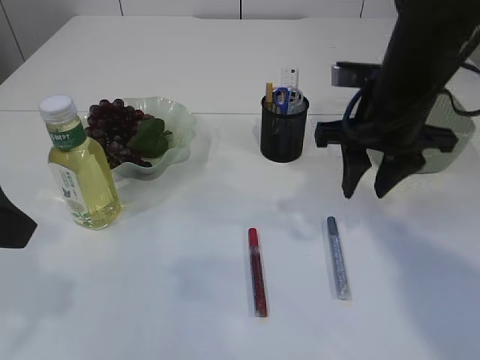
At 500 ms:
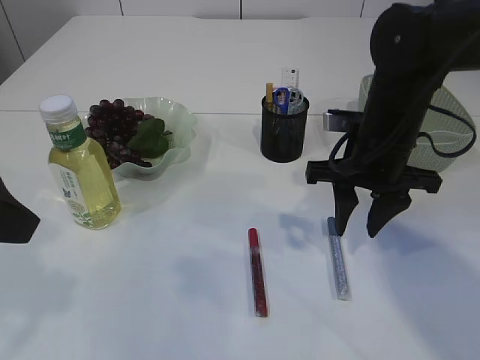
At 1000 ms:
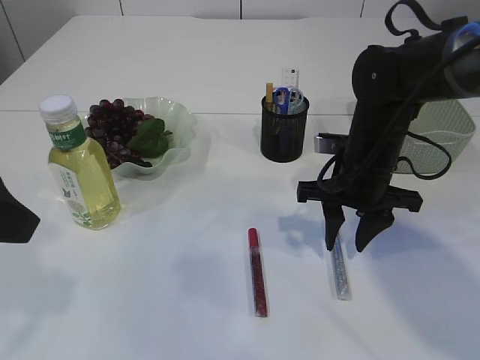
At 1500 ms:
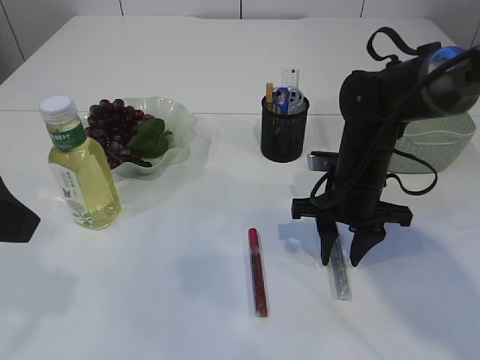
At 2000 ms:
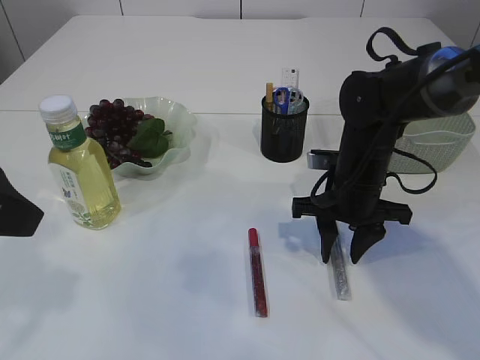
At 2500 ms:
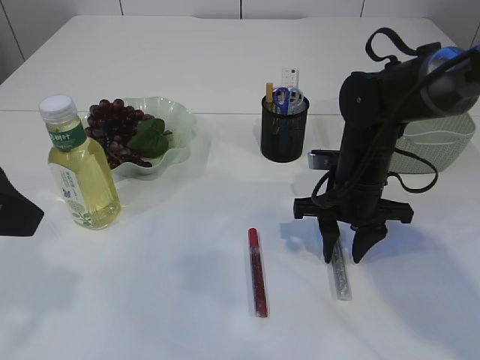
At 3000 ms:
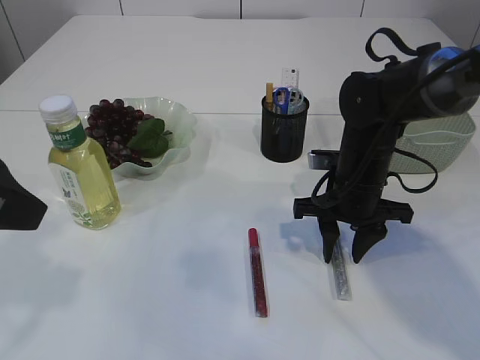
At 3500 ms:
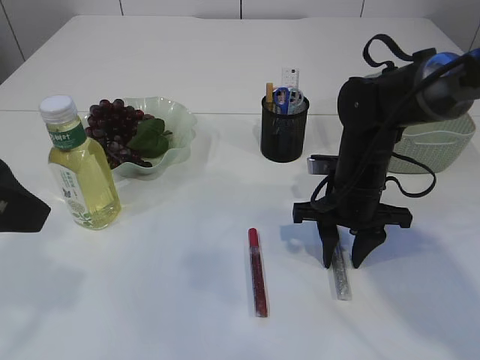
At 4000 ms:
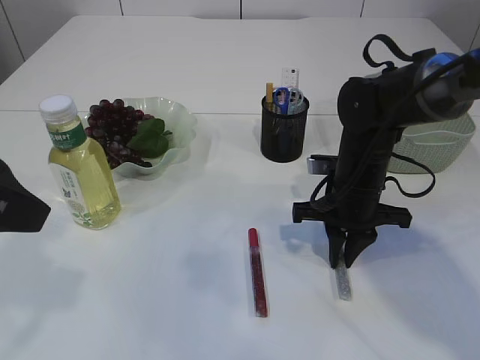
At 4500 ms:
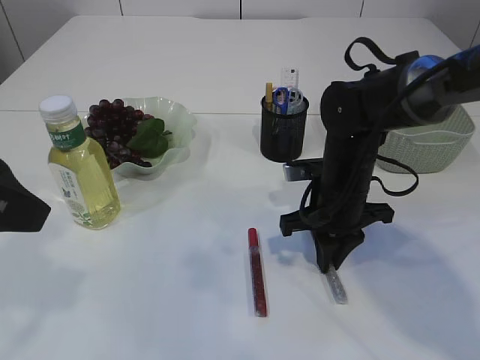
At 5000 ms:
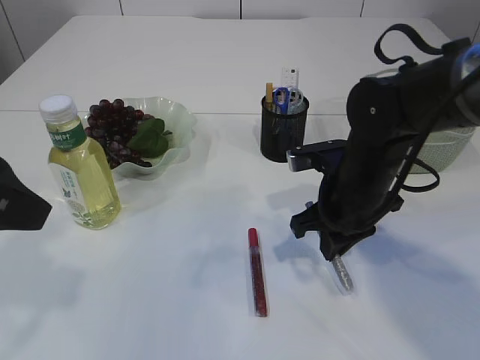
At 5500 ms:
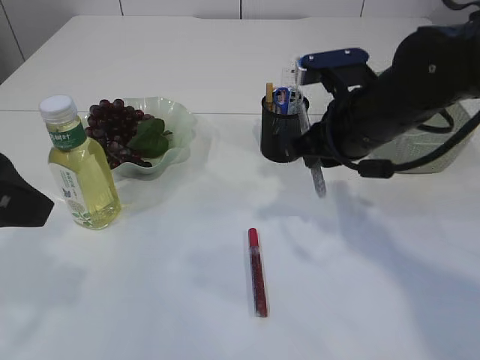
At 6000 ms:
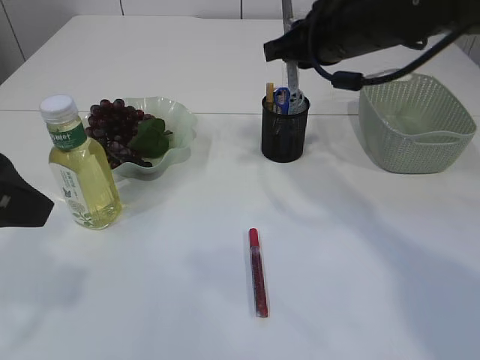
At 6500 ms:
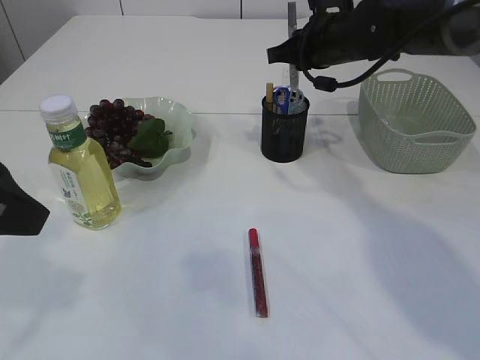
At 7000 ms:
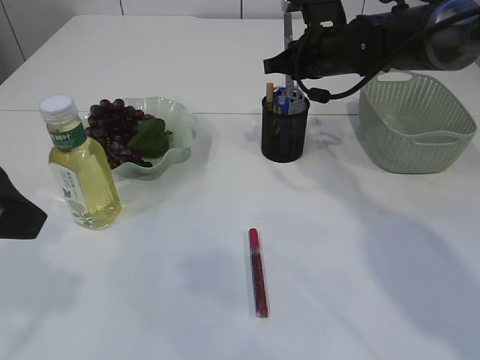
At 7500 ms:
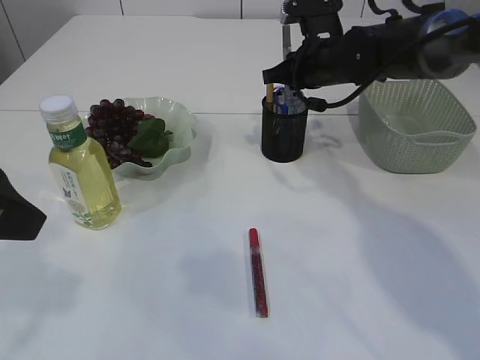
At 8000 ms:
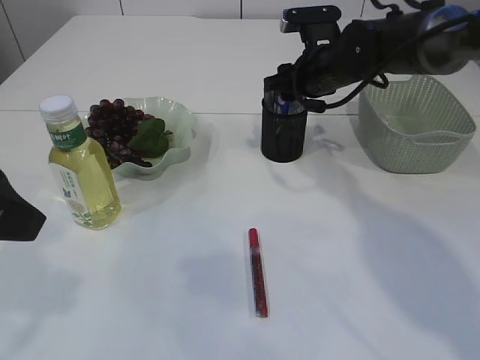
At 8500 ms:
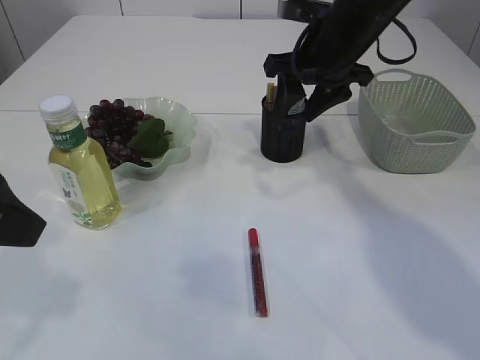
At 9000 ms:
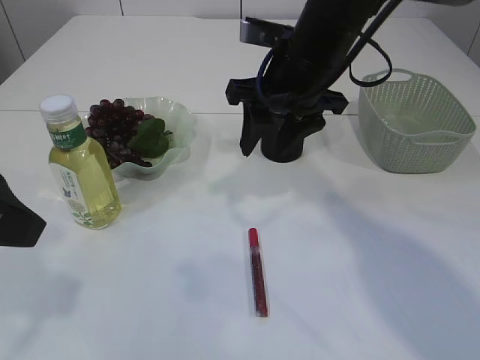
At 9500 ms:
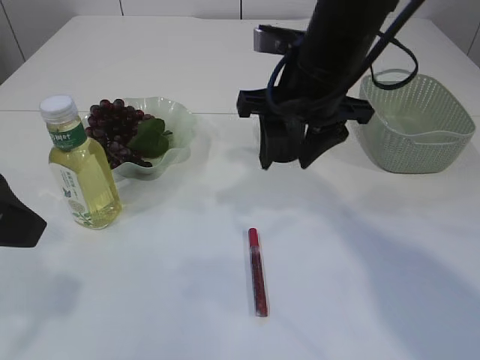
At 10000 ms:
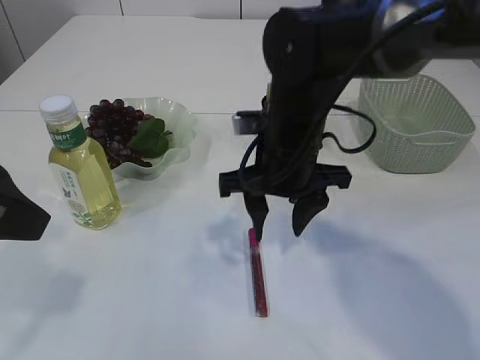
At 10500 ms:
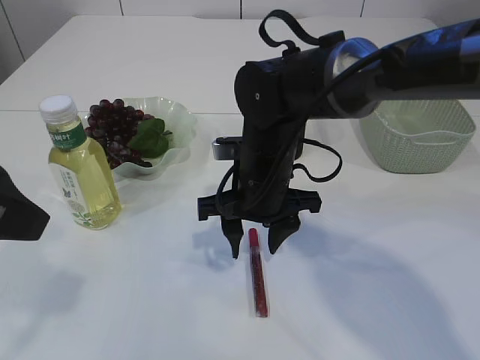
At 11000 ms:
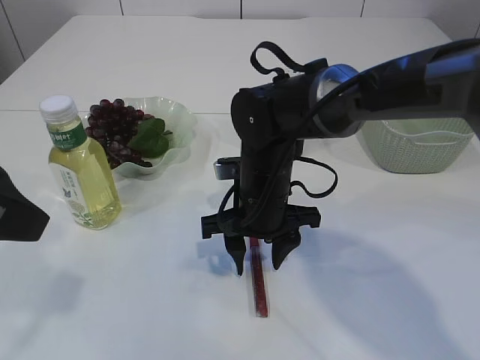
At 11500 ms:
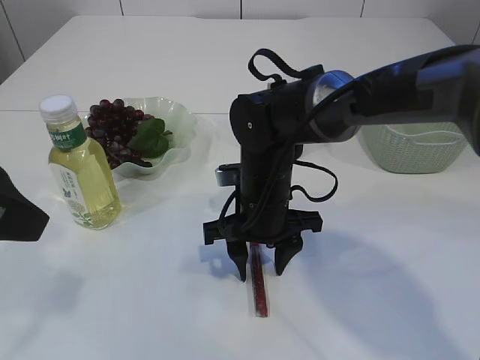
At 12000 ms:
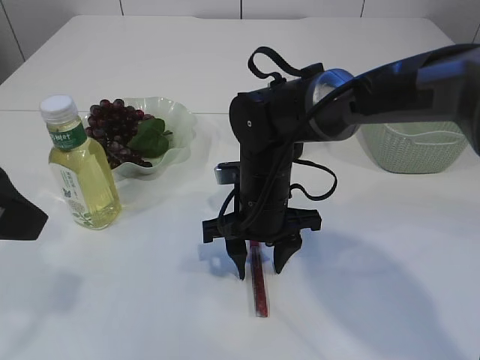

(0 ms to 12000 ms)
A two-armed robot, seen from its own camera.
Step, 0 ms - 5000 ms: pick up the silver glue.
Step, 5500 ms - 8000 ms: place the silver glue into the pen holder.
0 ms - 2000 ms: The right gripper is displaced downward by approximately 10 cm.
2000 ms - 4000 ms: The right gripper closes.
4000 ms - 6000 ms: The right gripper goes some 15 cm upward.
6000 ms - 8000 ms: The right gripper travels forward and downward by about 10 cm, and opens.
8000 ms - 10000 ms: The right gripper moves backward and to the left, roughly 15 cm.
10000 ms - 12000 ms: The right gripper is displaced downward by roughly 10 cm.

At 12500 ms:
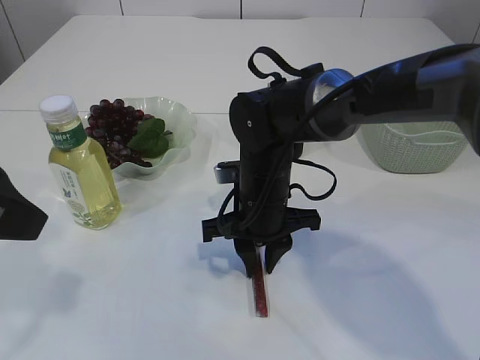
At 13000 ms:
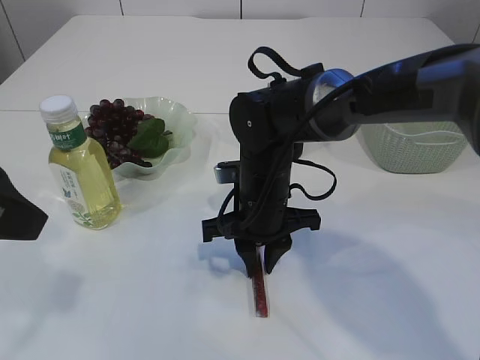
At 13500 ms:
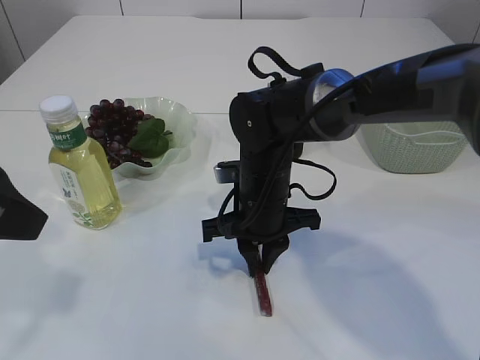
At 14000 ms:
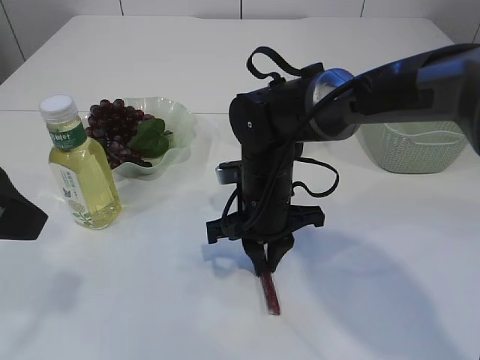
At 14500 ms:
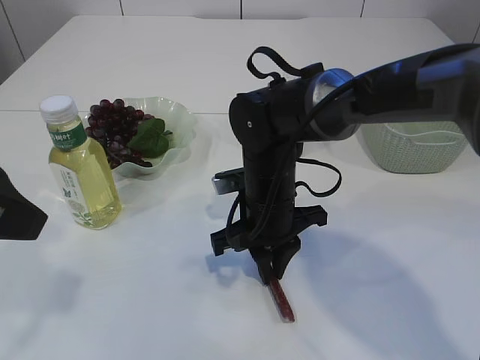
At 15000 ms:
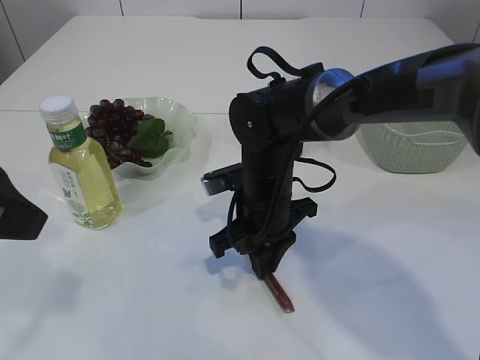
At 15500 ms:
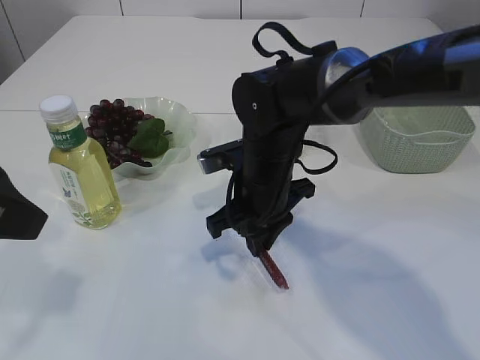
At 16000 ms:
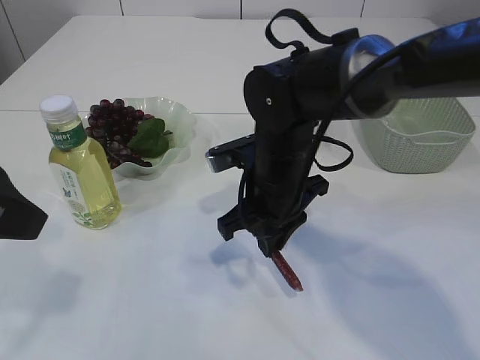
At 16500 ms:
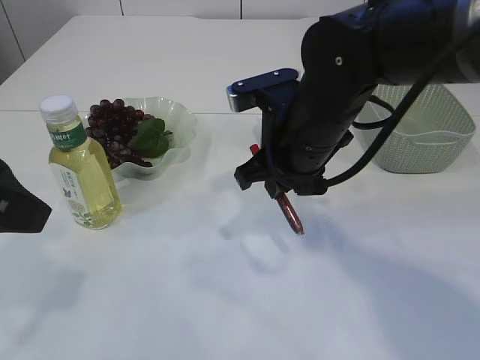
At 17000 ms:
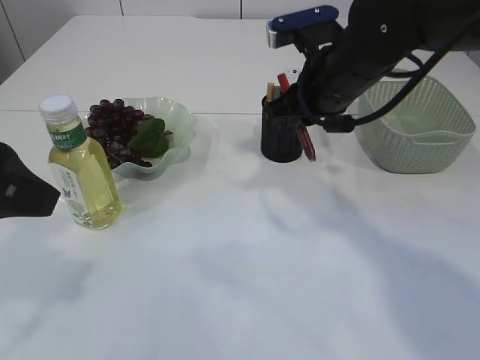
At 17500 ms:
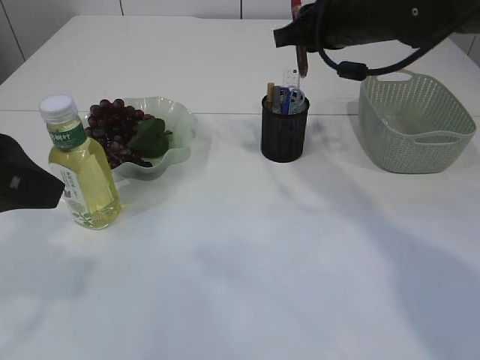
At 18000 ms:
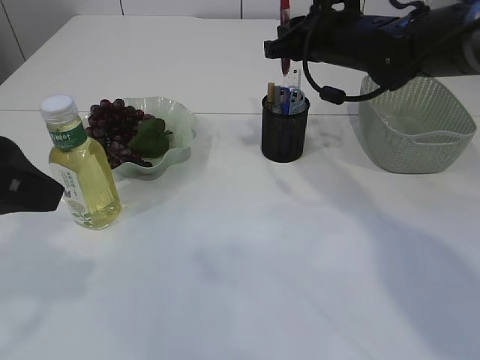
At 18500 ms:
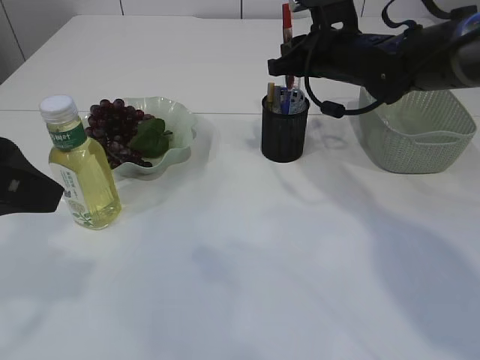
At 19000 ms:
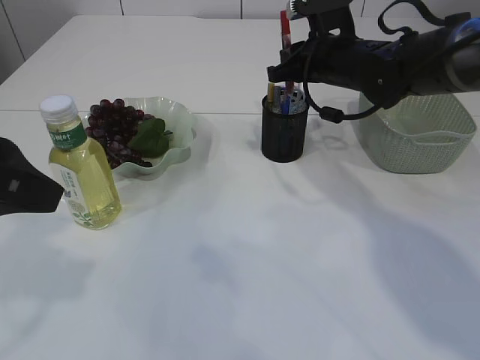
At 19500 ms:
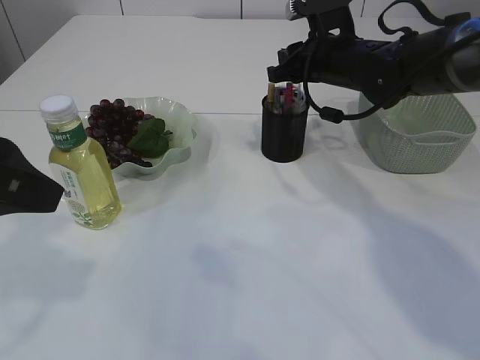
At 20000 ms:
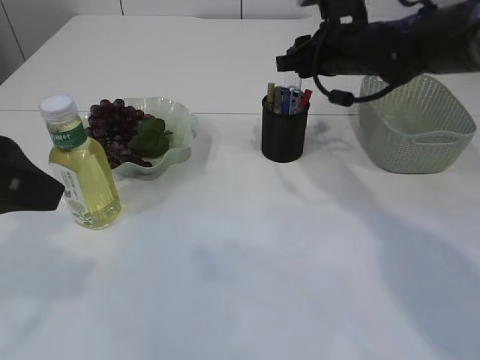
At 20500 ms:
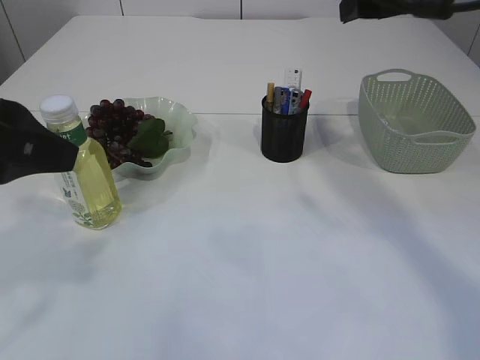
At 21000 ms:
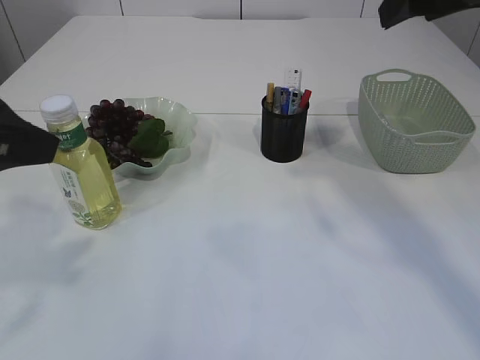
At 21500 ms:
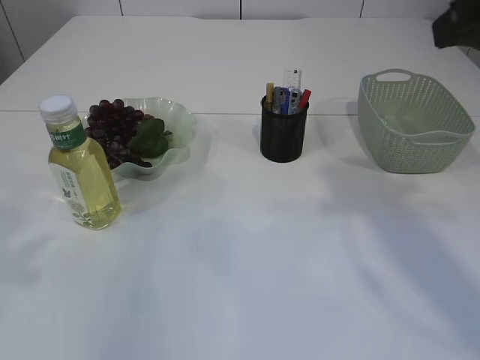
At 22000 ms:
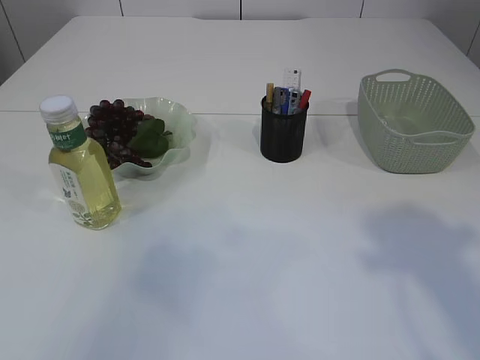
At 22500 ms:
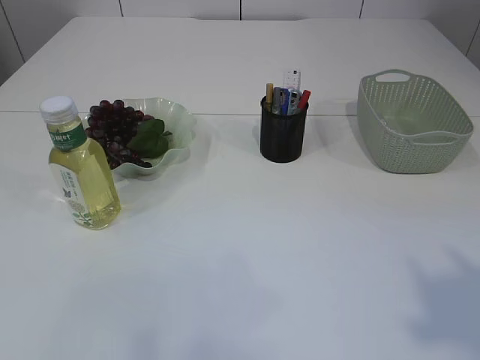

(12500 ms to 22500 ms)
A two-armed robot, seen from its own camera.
Step, 12500 ms - 16000 ms: pick up the red glue.
Step, 16500 ms - 20000 ms: place the red glue into the pen holder.
12500 ms - 14500 ms: The grippers stay close to where they were, moving slightly.
14500 ms - 16500 ms: The right gripper goes some 10 cm upward.
16500 ms - 18500 ms: The right gripper is displaced forward and to the right by roughly 15 cm.
18500 ms - 20500 ms: The right gripper is displaced upward and backward by roughly 15 cm, and opens.
20500 ms - 22500 ms: The left gripper heads backward and to the left, covering about 25 cm, while the right gripper is displaced backward by approximately 30 cm.

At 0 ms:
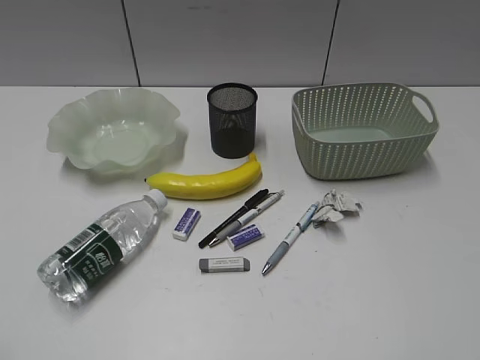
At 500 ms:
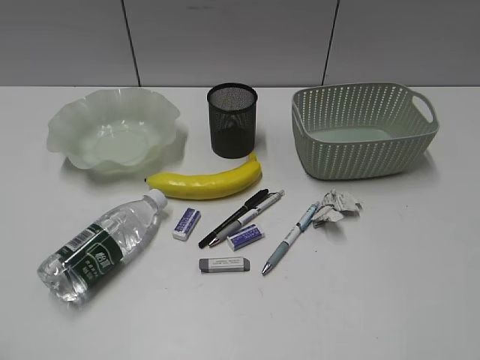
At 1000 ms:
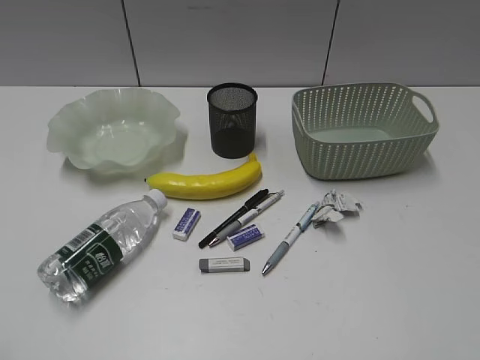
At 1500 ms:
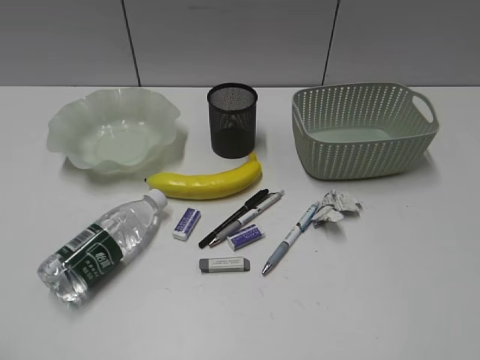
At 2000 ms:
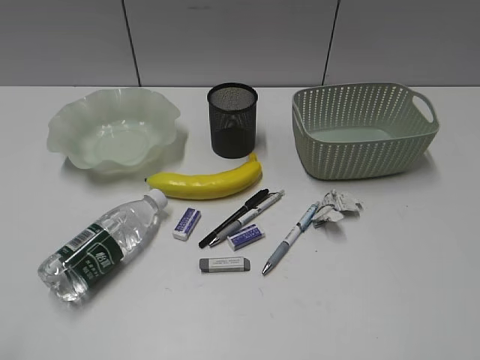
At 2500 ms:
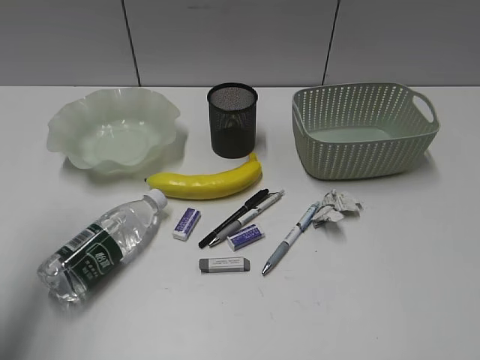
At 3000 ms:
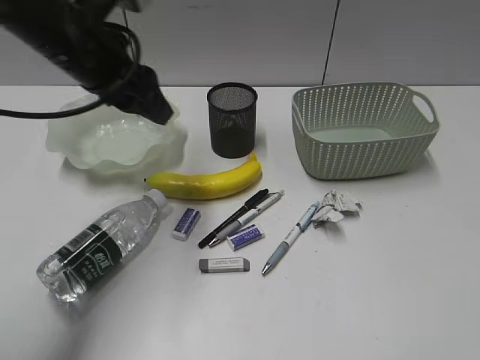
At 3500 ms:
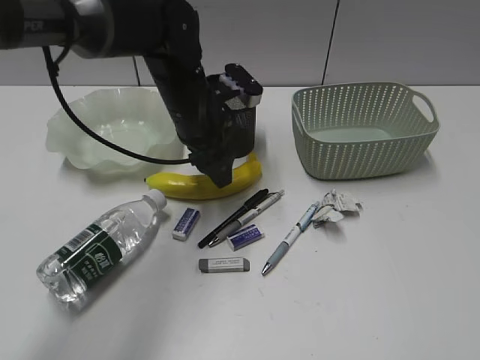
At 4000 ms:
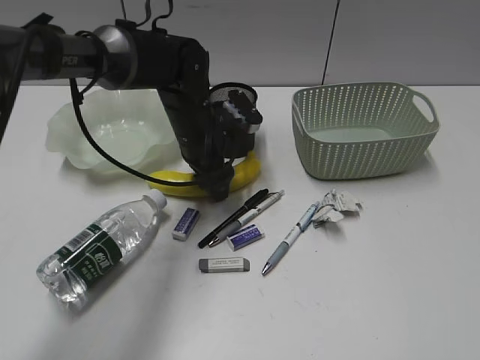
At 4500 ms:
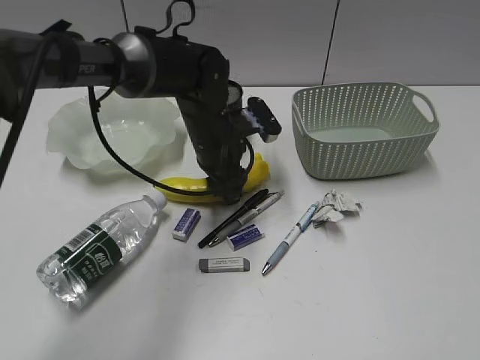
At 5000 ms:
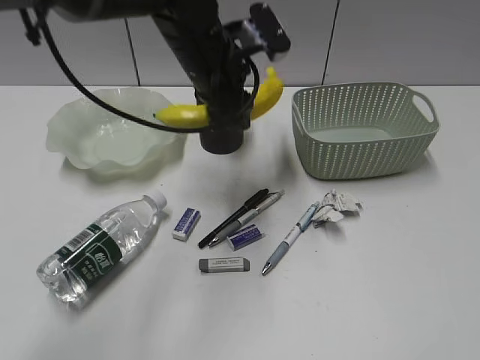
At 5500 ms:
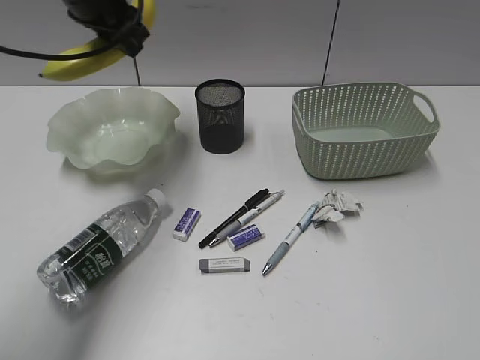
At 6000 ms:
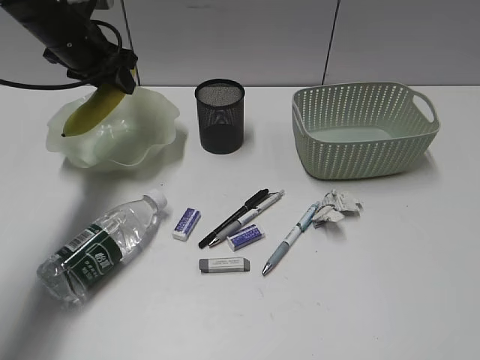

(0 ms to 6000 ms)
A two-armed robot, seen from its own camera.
Step, 2000 ms - 4000 ms: Grasp the banana with left gripper.
2000 ms - 4000 ms: The left gripper goes roughly 50 cm forward, to the right and downward, and opens.
4000 ms - 6000 ms: The left gripper is displaced to the left, upward and forward by some 20 cm.
